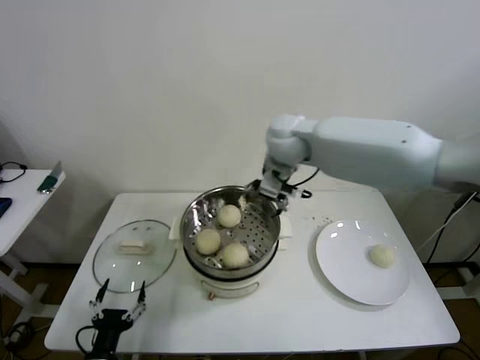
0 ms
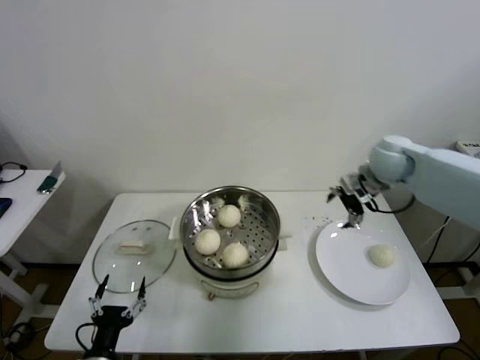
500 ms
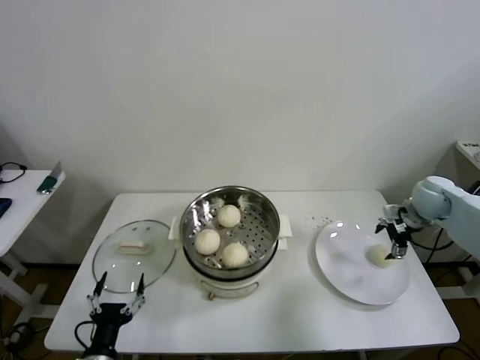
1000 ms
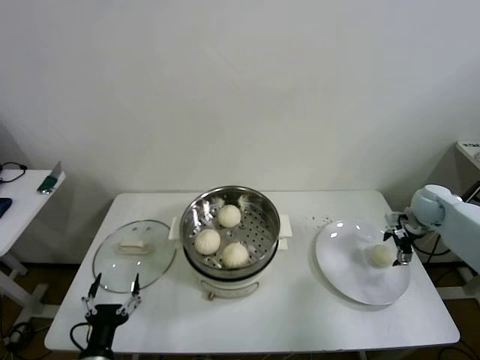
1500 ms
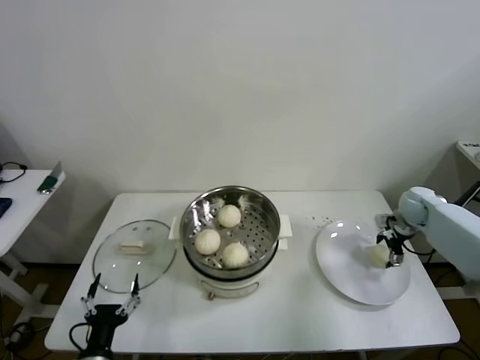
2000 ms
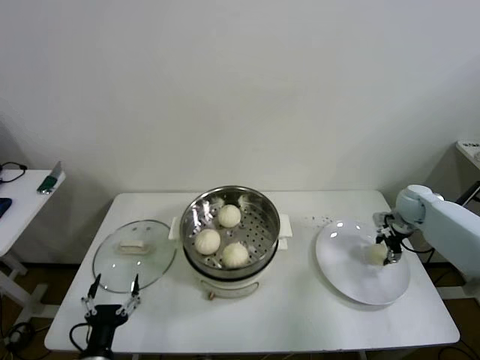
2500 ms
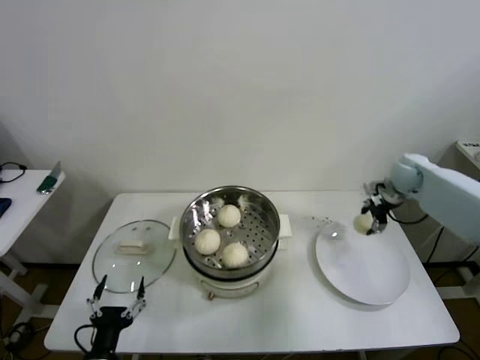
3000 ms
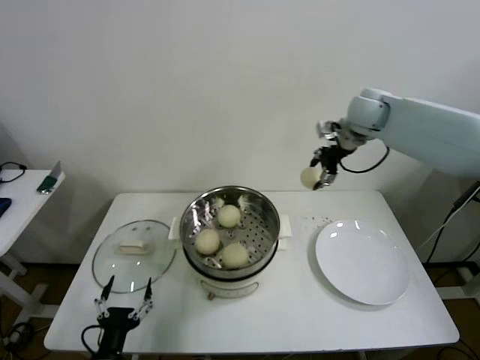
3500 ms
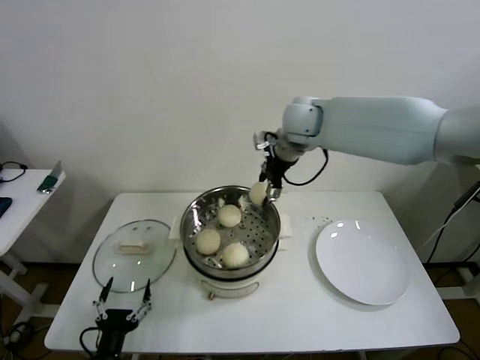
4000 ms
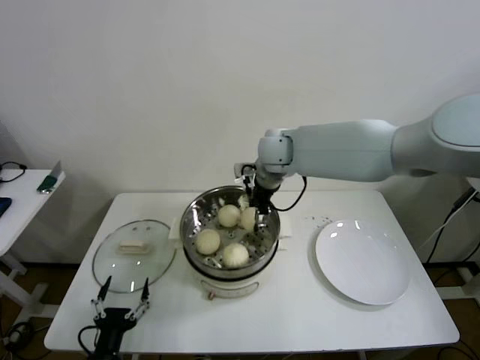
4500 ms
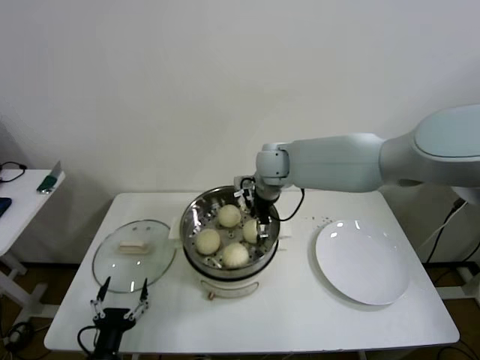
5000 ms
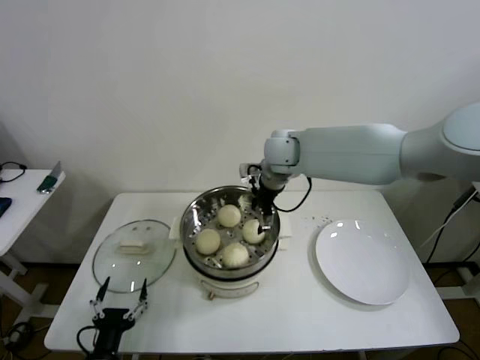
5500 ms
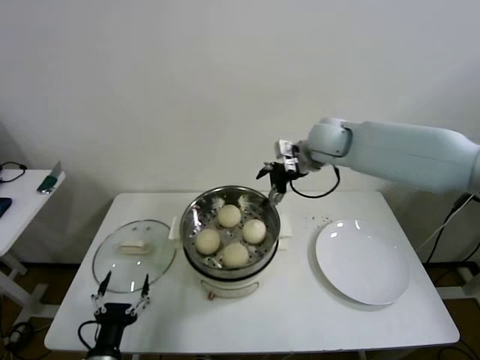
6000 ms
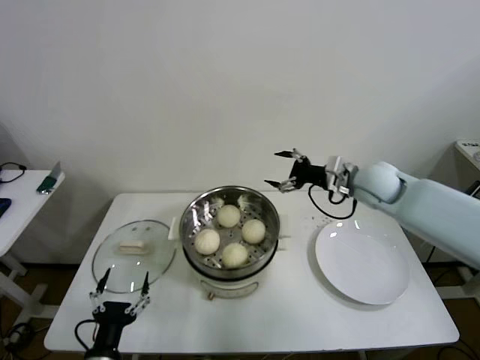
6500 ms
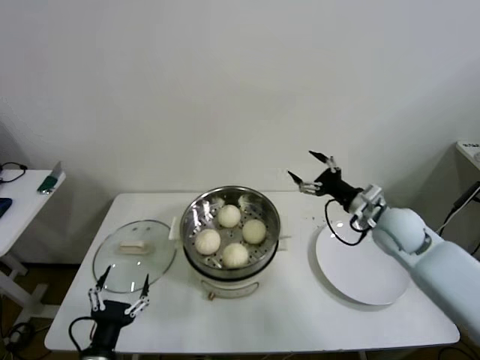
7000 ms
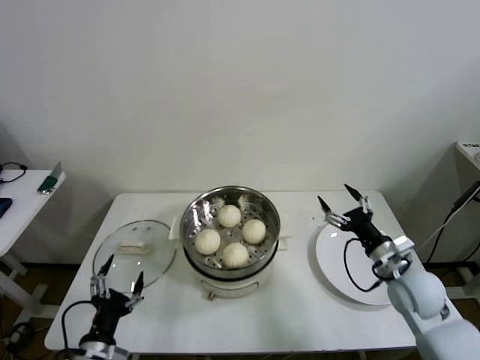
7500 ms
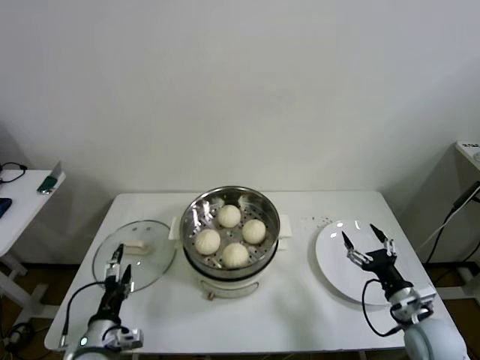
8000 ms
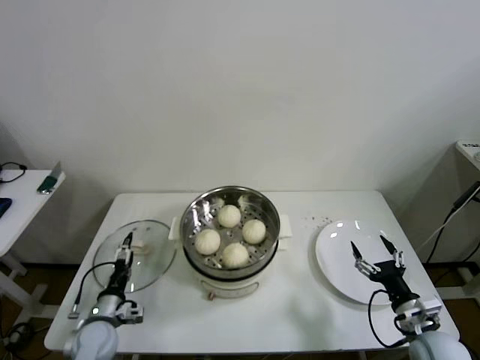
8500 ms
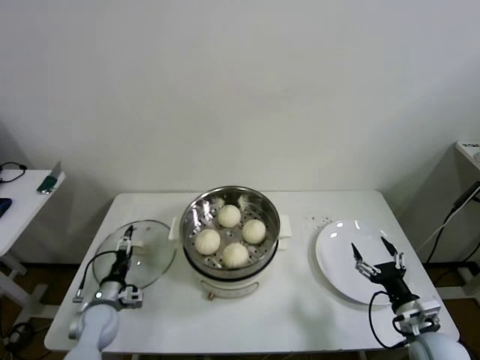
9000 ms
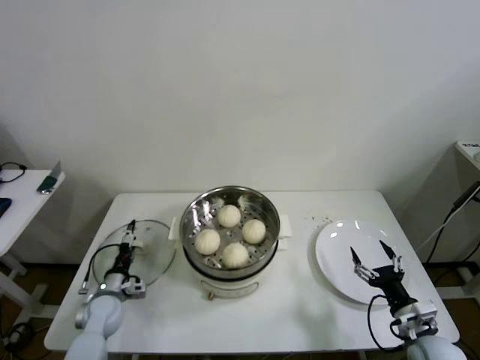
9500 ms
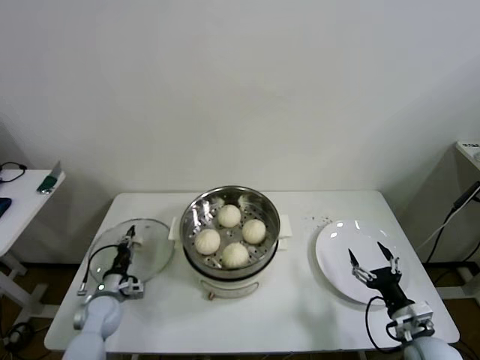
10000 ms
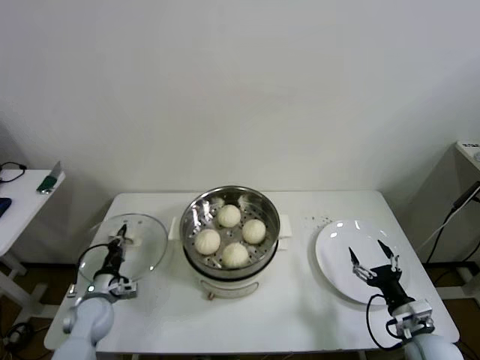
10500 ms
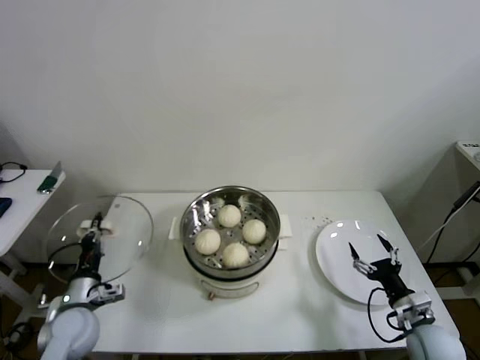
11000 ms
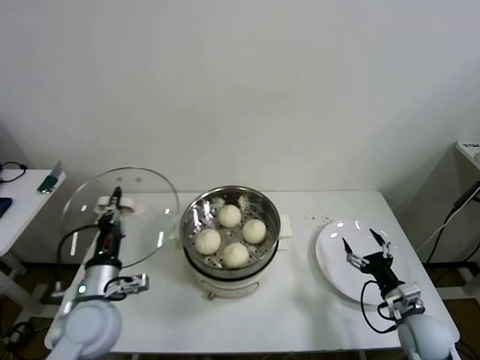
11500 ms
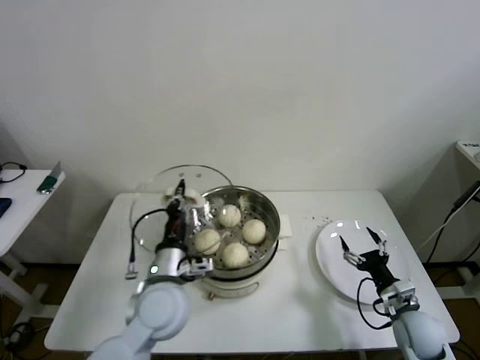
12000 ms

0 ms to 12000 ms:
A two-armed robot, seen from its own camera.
Step, 0 ms to 2000 ms: Grasp the baozi in the plate with right gripper.
Step, 2500 ms to 5500 ms: Place the baozi on the steamer with right gripper.
Step, 6000 ms to 10000 ms: Grasp the pot lid with left gripper.
0 ms to 2000 ms: The right gripper is displaced to the right and downward by approximately 40 cm.
2000 ms to 4000 ms: The right gripper is displaced to the left and upward by roughly 40 cm, and closes its fingers.
4000 ms to 6000 ms: The right gripper moves to the right, roughly 5 cm, and opens.
6000 ms to 8000 ms: The right gripper heads backward, downward and to the right, covering some 50 cm. The left gripper travels forward by approximately 5 cm.
8000 ms to 10000 ms: The left gripper shifts some 20 cm forward, downward and to the left, and closes its fingers.
10000 ms to 12000 ms: The right gripper goes about 5 cm forward, while the left gripper shifts some 30 cm upward and to the right, and closes up.

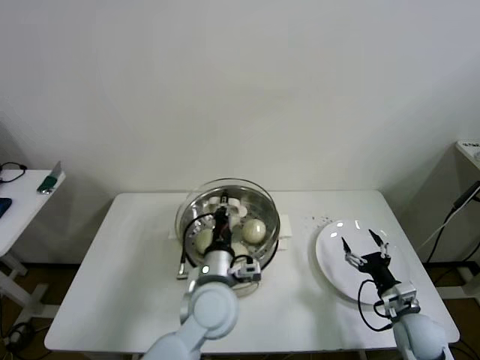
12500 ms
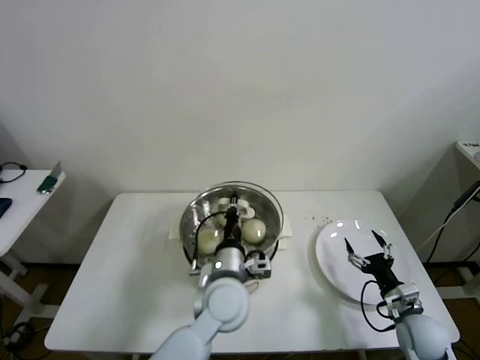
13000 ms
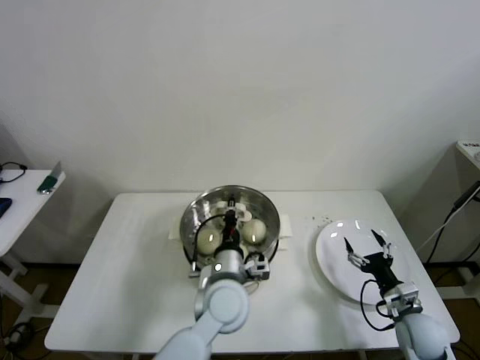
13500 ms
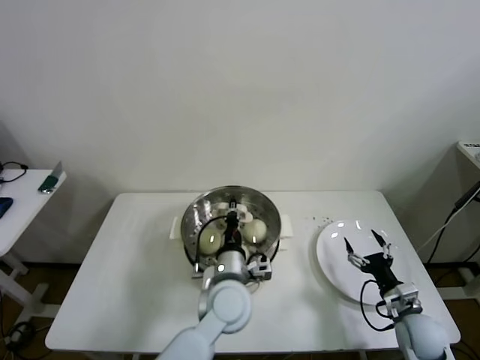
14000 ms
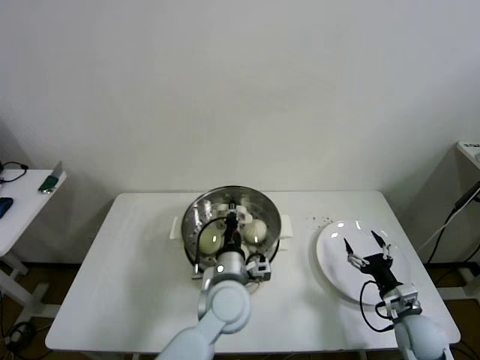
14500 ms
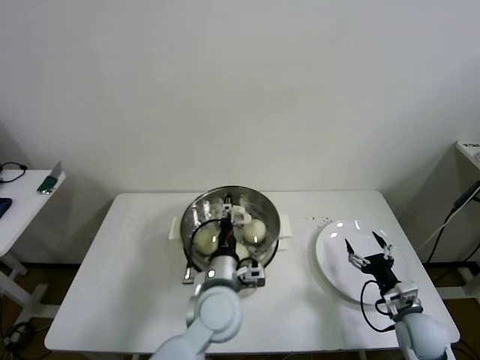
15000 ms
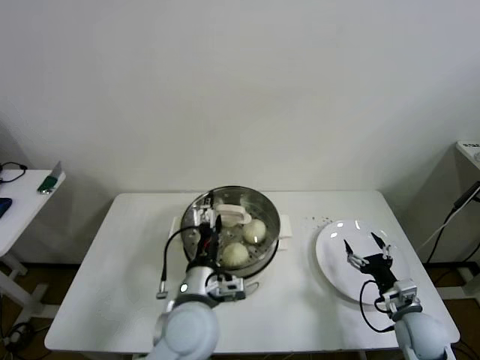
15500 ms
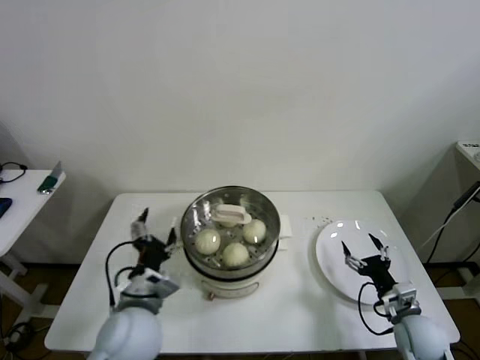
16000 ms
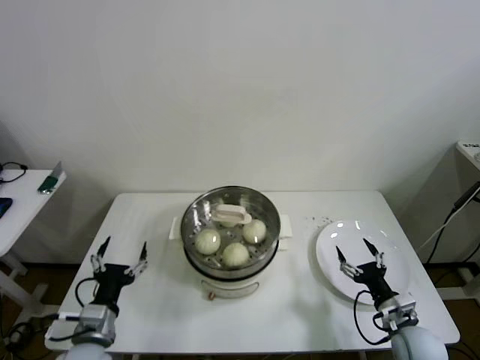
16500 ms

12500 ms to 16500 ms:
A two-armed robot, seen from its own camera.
Step, 12500 ms to 15000 ms: Place the pot lid on the steamer with left gripper.
12500 ms to 14500 ms: The left gripper shifts by approximately 5 cm.
14500 ms to 16500 ms: The left gripper heads to the left, covering roughly 25 cm, and opens.
